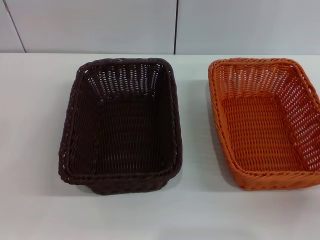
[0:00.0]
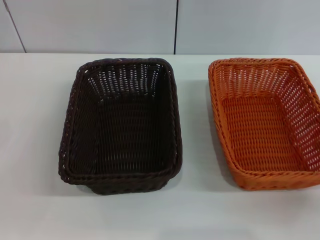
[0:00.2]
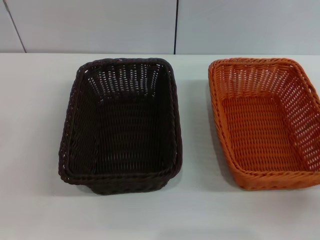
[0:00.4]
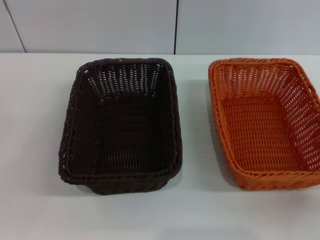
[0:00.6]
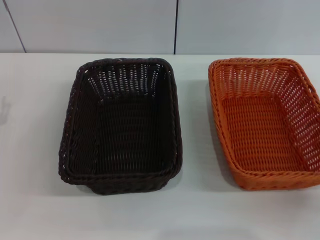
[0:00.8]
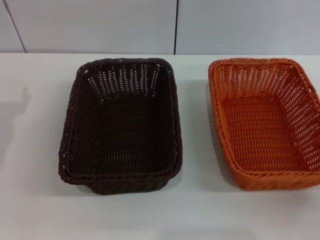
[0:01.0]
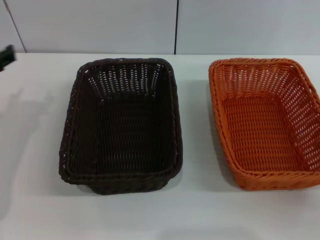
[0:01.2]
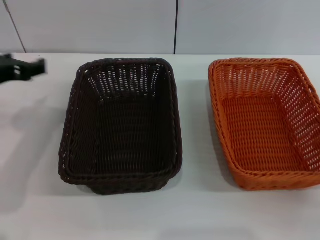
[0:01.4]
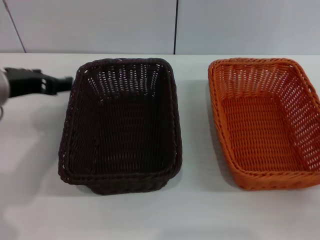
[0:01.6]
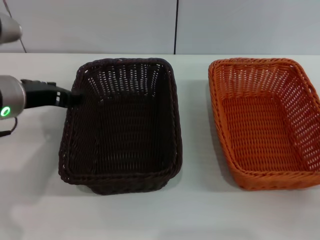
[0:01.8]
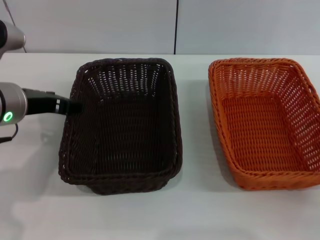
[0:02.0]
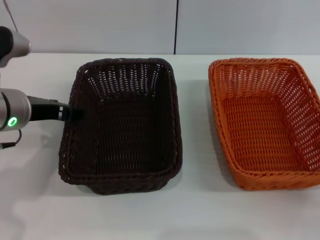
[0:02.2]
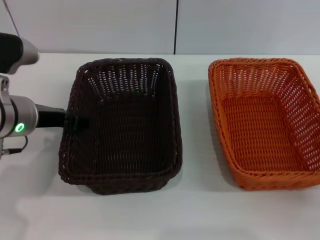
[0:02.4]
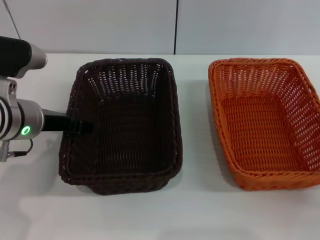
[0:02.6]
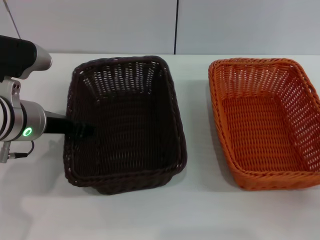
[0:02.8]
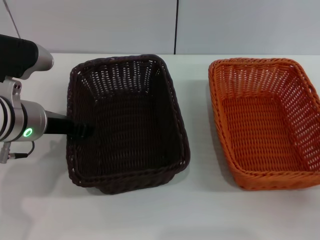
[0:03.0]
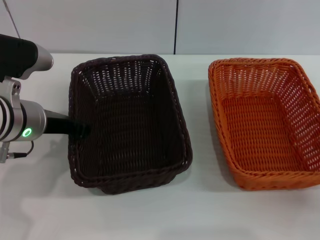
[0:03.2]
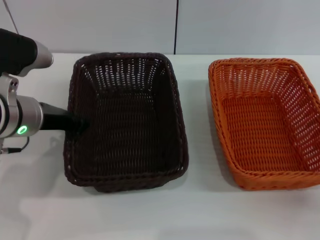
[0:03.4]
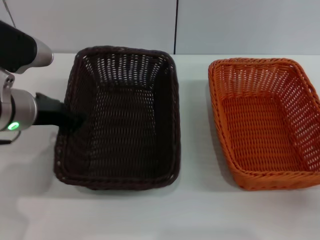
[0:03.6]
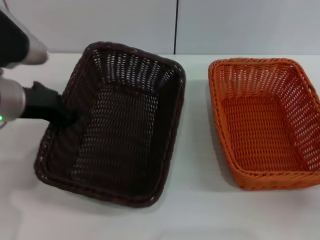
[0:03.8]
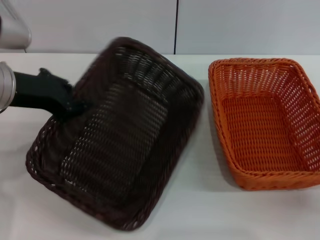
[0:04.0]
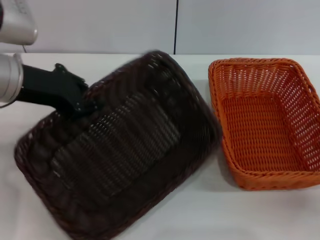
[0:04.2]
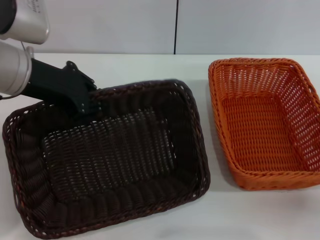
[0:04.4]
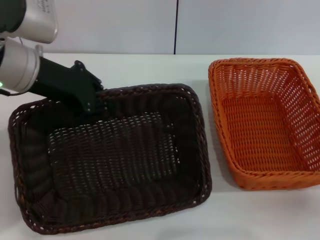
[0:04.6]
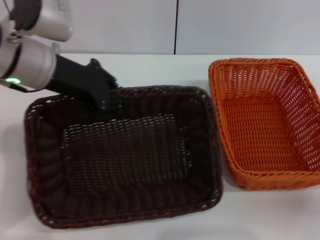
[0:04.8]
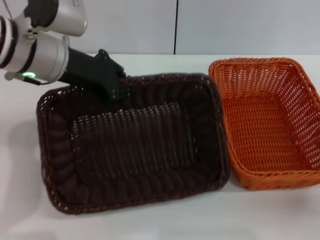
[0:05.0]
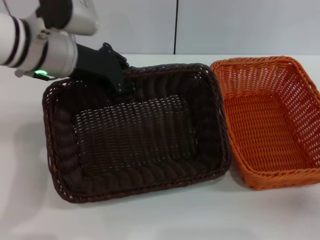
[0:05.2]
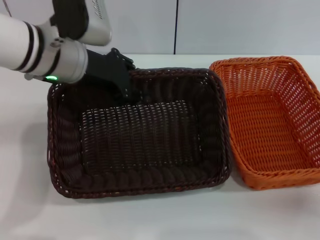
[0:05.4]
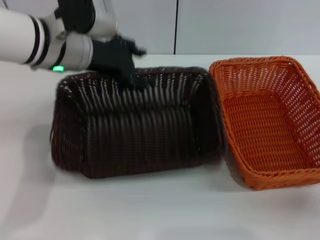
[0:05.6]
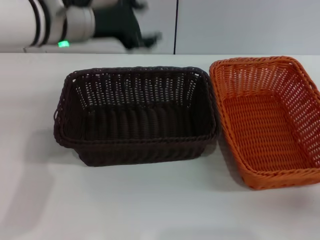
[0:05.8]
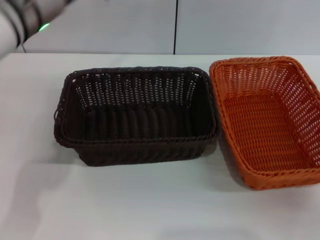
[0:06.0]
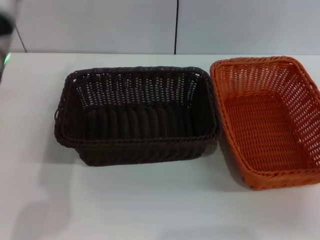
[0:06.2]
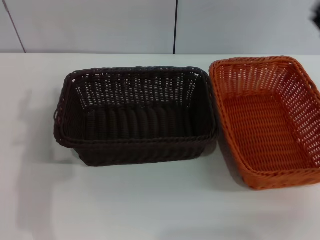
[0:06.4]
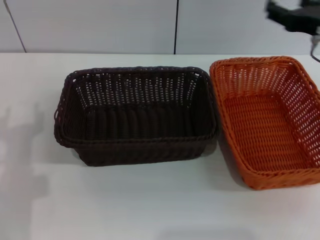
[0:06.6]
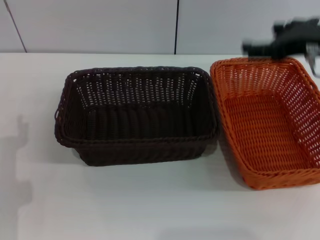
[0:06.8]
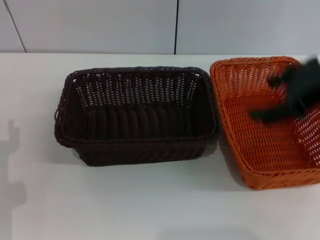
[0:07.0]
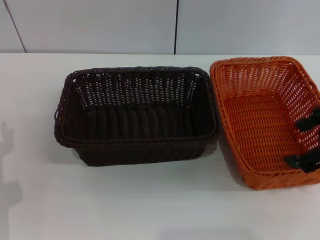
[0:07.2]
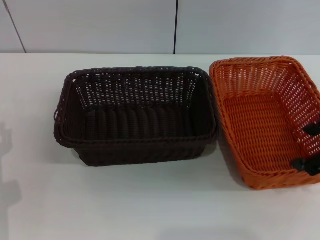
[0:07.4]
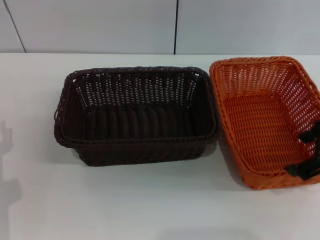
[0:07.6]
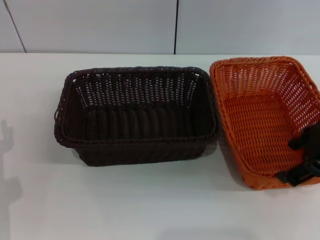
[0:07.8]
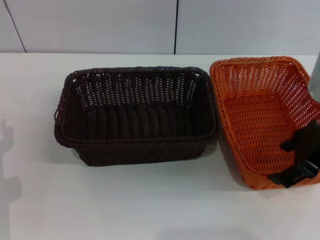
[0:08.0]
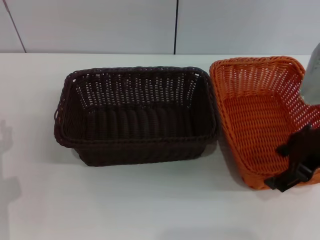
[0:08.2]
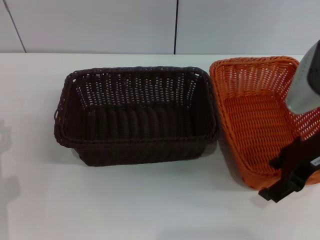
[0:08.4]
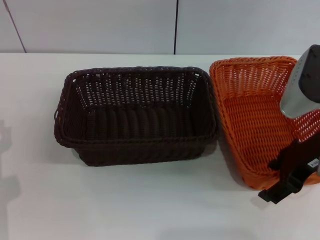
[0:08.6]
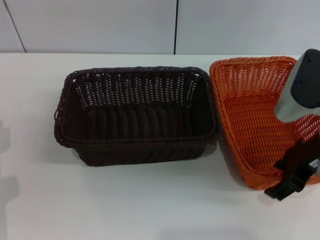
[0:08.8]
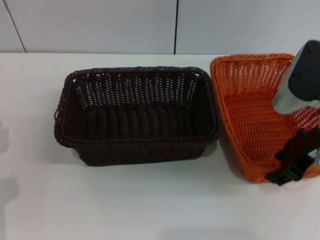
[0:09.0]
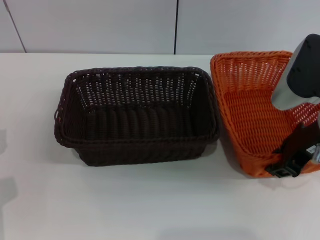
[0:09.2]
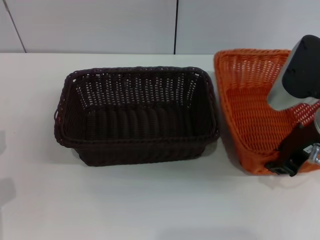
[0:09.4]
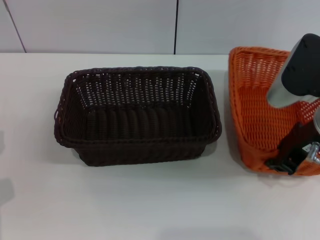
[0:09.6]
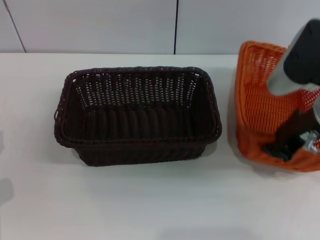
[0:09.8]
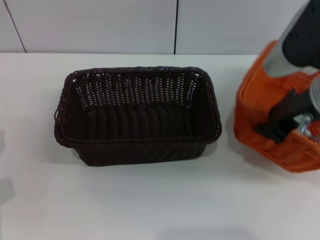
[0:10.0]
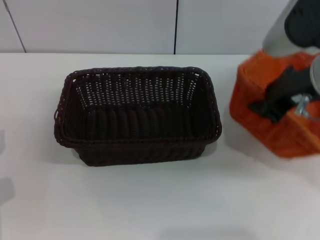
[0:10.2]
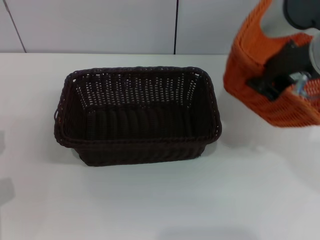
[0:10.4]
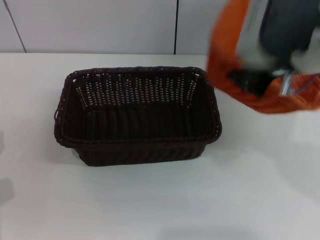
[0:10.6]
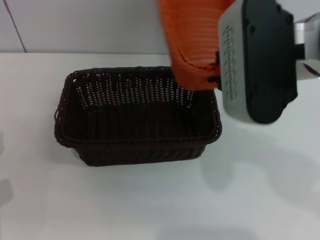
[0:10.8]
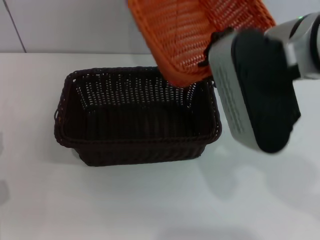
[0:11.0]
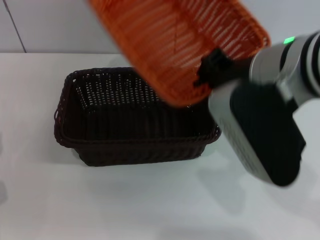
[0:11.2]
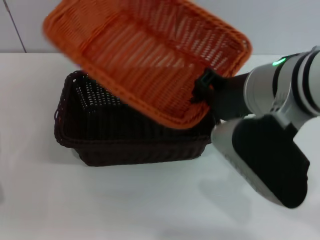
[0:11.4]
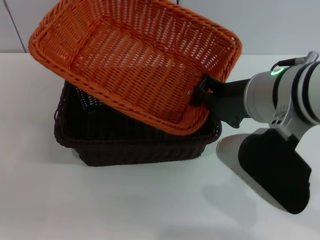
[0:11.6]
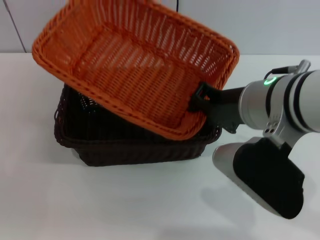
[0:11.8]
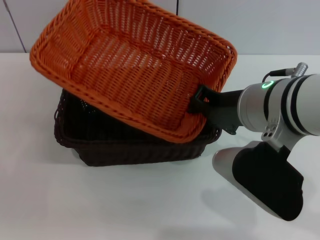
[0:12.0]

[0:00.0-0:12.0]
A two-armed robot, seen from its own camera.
Step, 0:00.0 to 0:03.8: Pick up the dark basket with the left gripper.
Step, 0:04.0 to 0:05.6: Place the dark basket in the center of view with the left gripper.
Step, 0:05.8 to 0:10.0: Pick up the light basket with the right gripper.
0:00.0 to 0:01.6: The left gripper is displaced upward, to the right and forward by roughly 20 cm.
0:01.6 to 0:03.0: The left gripper ends up some 5 cm from where it was.
0:03.0 to 0:04.4: The left gripper is displaced upward by approximately 10 cm, and closes its fingers.
0:04.4 to 0:06.0: The left gripper opens up.
0:06.0 to 0:07.6: The right gripper shifts roughly 20 cm upward and to the left. Meanwhile the left gripper moves downward, backward and to the left, roughly 25 cm.
0:07.6 to 0:09.0: The right gripper is displaced downward by about 5 cm.
0:09.0 to 0:10.4: The right gripper heads upward, covering roughly 10 cm, and closes up.
0:10.4 to 0:12.0: The right gripper heads downward and to the left, covering roughly 10 cm.

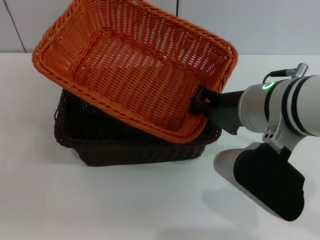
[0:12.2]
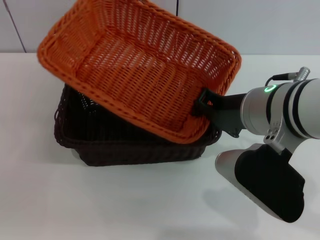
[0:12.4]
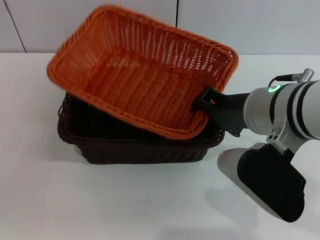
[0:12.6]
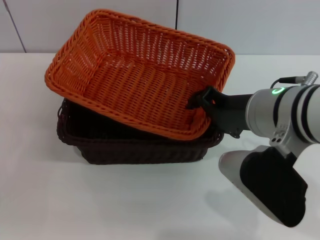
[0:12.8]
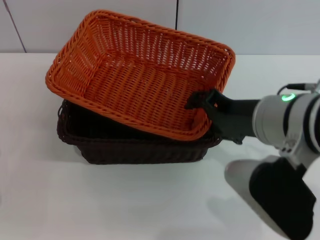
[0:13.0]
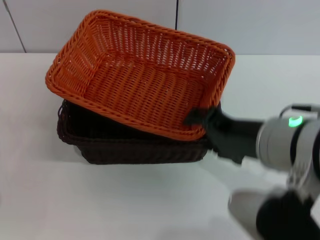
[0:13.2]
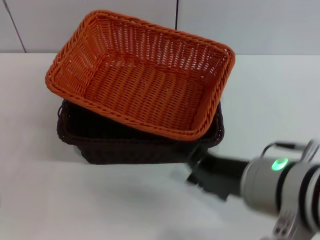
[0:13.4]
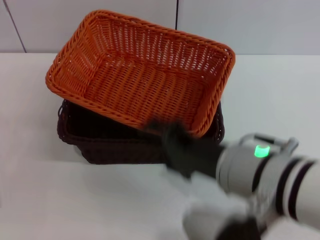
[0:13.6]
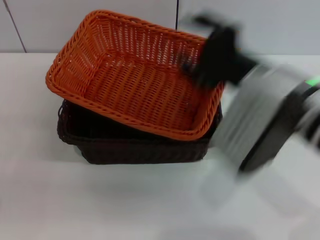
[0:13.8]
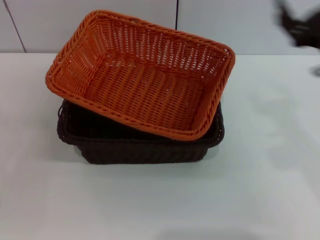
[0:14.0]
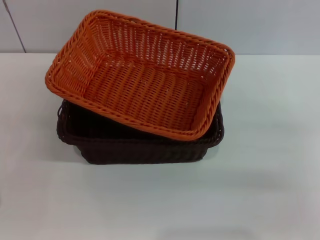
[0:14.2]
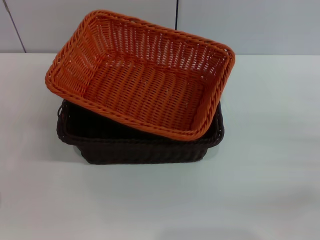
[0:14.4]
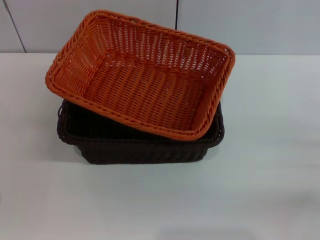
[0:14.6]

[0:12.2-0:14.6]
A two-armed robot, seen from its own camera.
0:12.2 to 0:13.4: The right gripper shifts some 10 cm backward, and opens.
0:13.4 to 0:14.6: The right gripper heads to the right and downward, covering about 25 cm.
